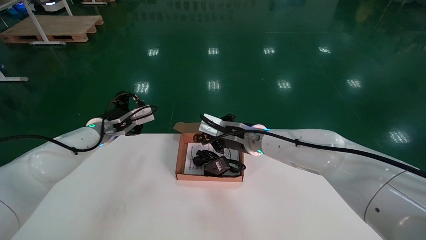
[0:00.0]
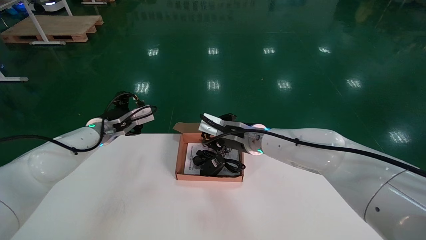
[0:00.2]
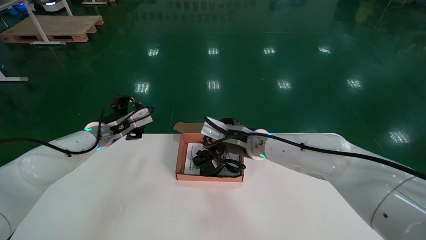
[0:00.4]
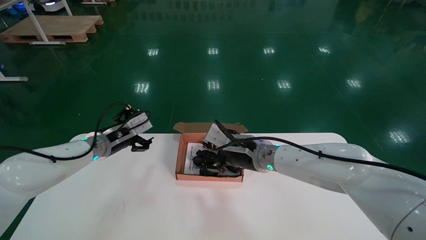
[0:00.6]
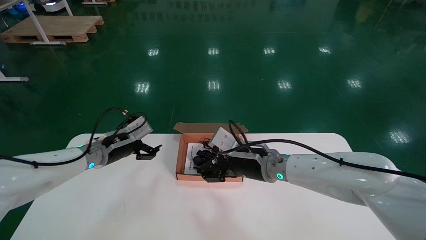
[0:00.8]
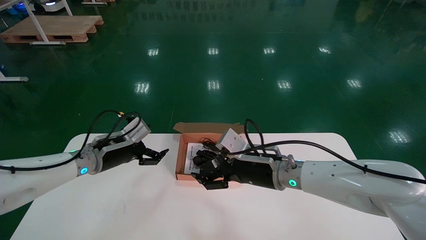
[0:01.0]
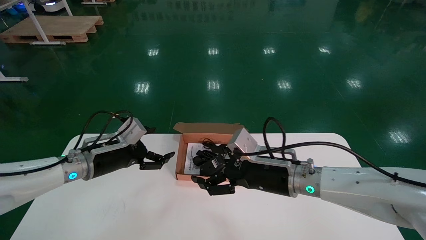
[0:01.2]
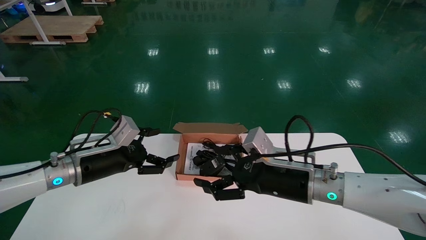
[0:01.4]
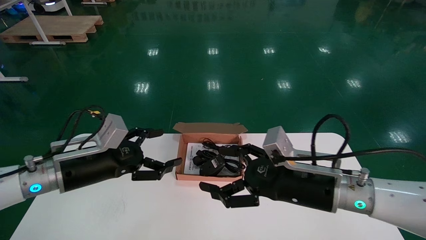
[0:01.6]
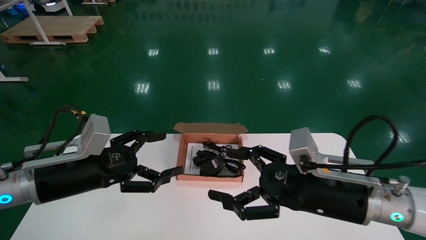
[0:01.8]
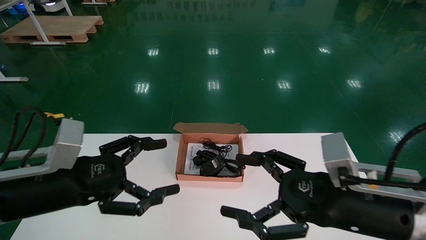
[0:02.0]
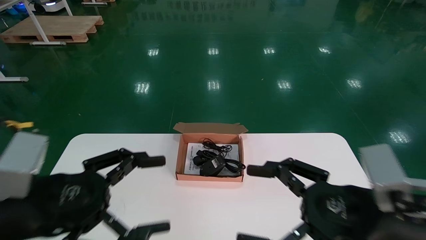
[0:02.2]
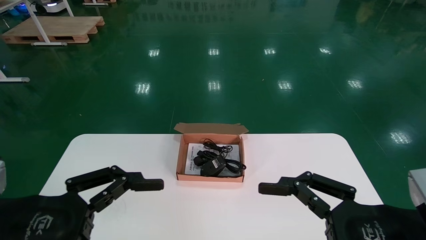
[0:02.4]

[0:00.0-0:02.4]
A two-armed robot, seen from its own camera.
0:00.0 to 0:01.2: The right gripper is displaced backward and to the right by approximately 10 cm, and opens up, while the left gripper is displaced backward by approximately 10 cm.
0:01.2 to 0:02.4: The right gripper travels backward and to the right by about 25 cm. The left gripper goes some 25 cm backward.
